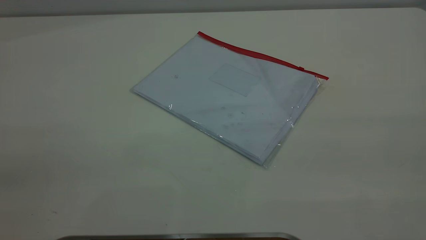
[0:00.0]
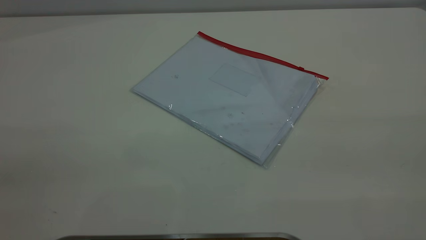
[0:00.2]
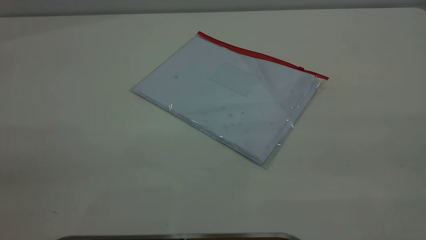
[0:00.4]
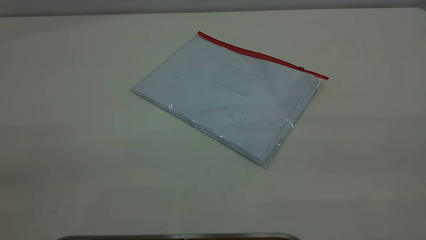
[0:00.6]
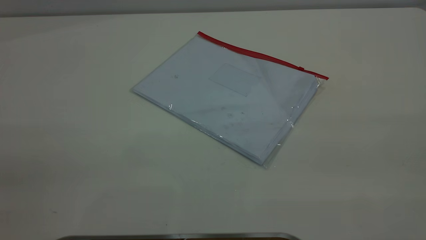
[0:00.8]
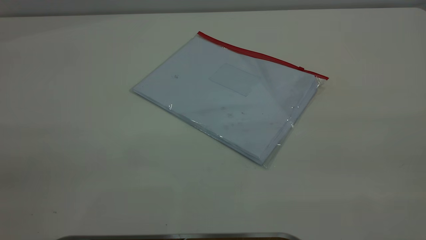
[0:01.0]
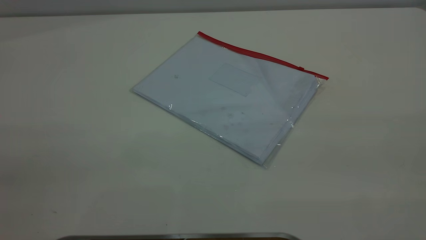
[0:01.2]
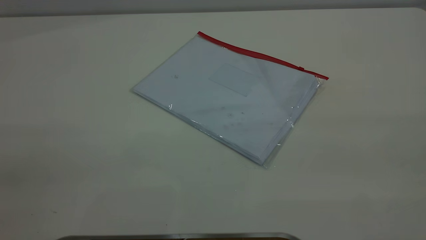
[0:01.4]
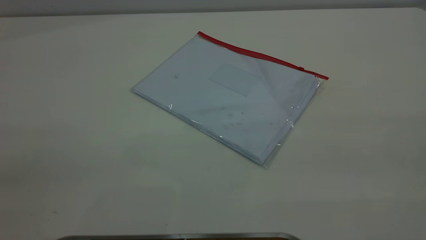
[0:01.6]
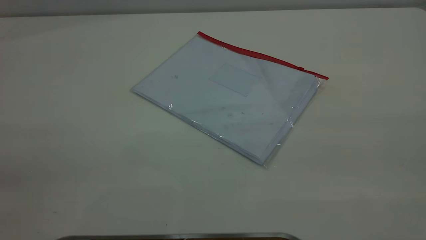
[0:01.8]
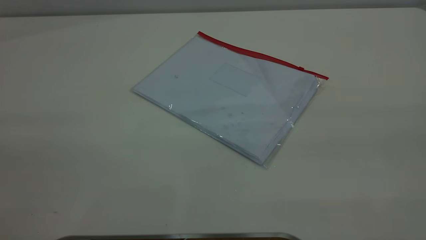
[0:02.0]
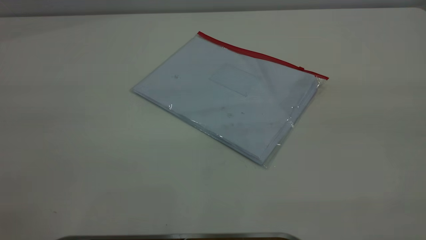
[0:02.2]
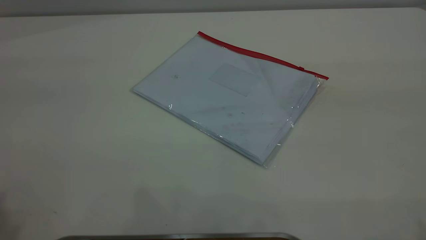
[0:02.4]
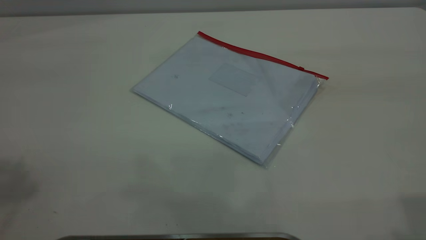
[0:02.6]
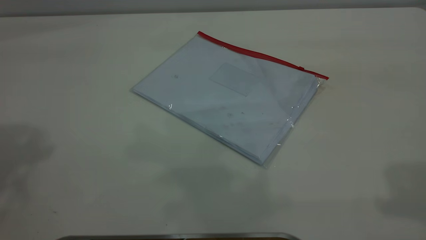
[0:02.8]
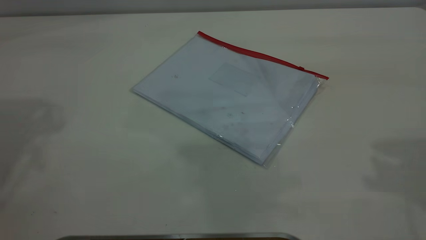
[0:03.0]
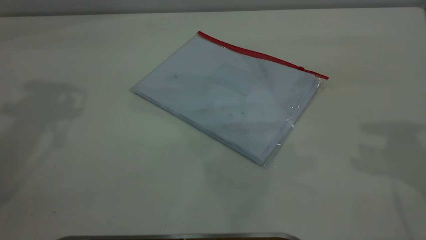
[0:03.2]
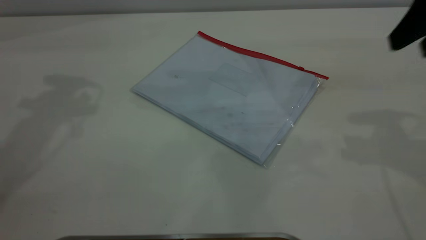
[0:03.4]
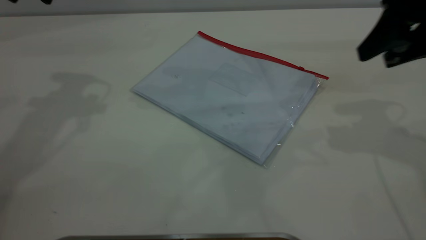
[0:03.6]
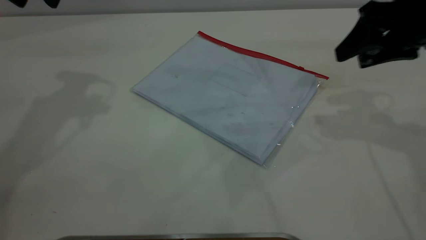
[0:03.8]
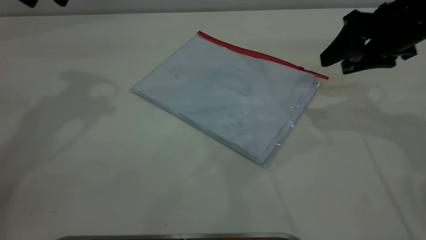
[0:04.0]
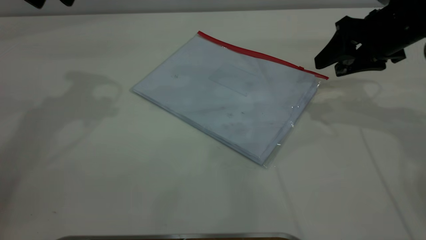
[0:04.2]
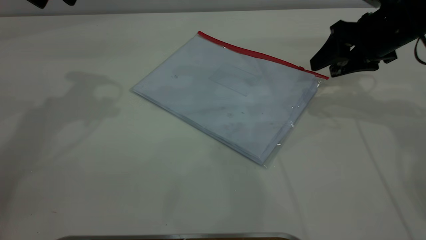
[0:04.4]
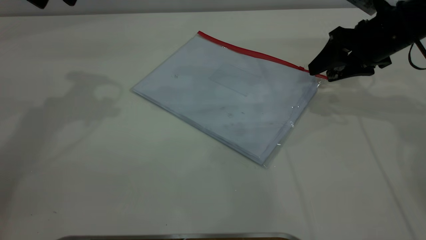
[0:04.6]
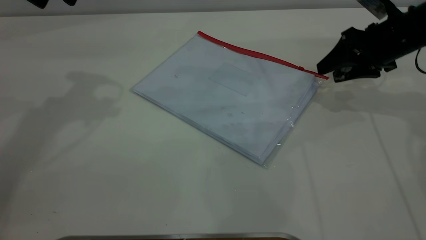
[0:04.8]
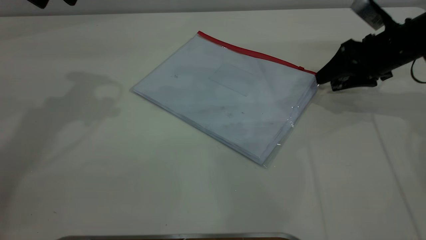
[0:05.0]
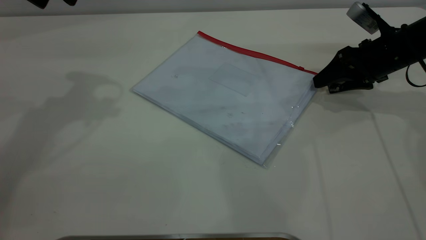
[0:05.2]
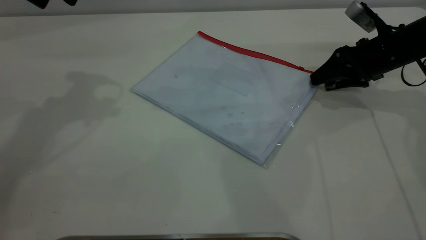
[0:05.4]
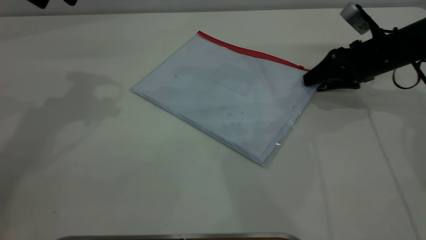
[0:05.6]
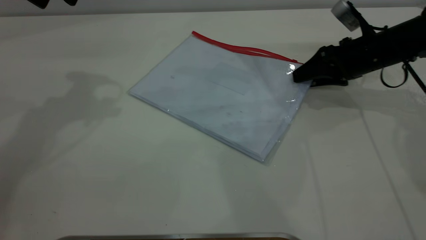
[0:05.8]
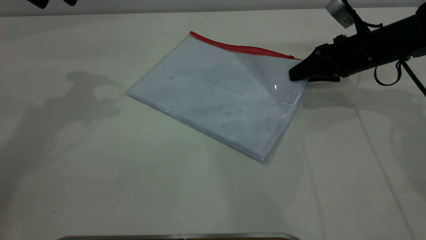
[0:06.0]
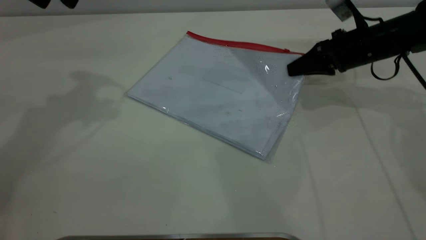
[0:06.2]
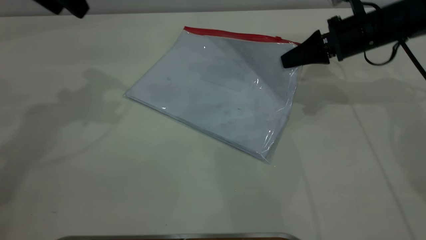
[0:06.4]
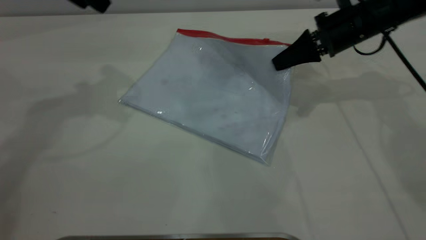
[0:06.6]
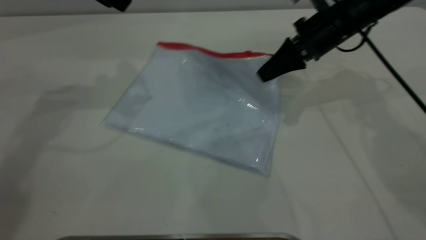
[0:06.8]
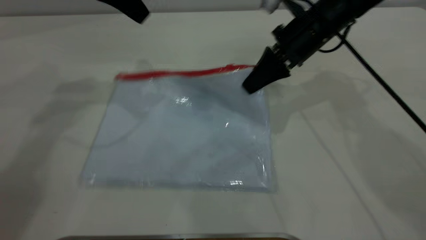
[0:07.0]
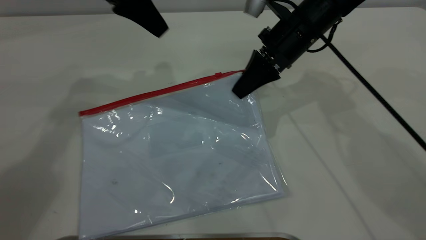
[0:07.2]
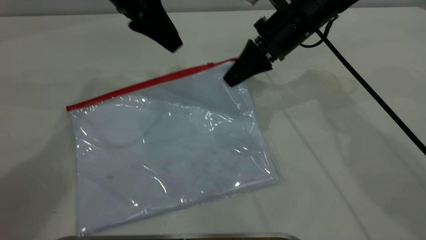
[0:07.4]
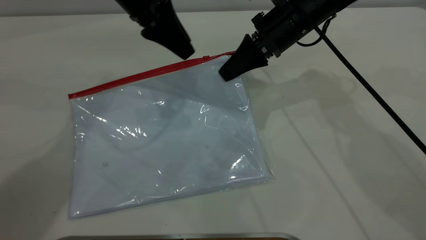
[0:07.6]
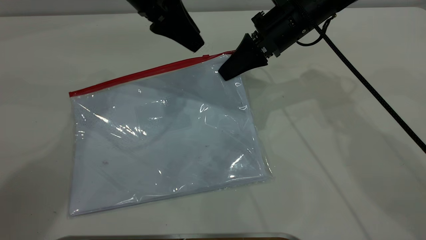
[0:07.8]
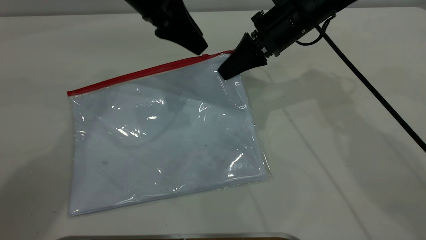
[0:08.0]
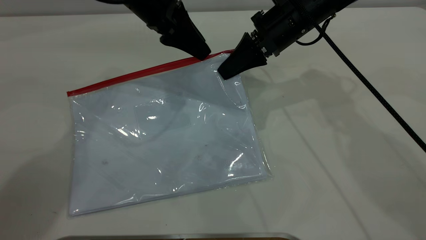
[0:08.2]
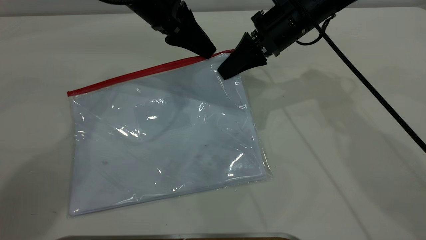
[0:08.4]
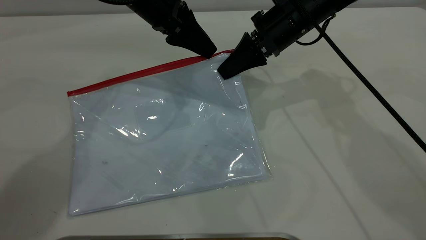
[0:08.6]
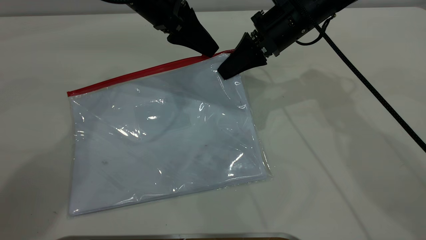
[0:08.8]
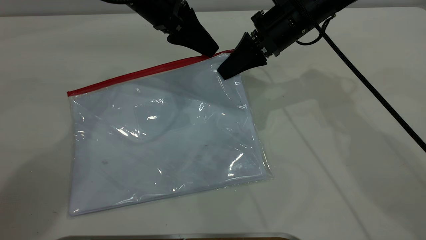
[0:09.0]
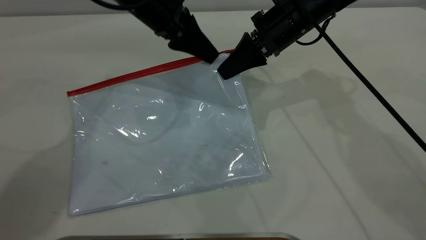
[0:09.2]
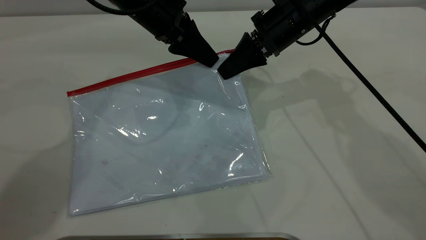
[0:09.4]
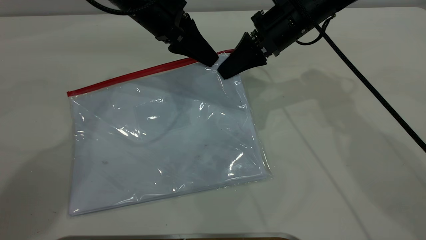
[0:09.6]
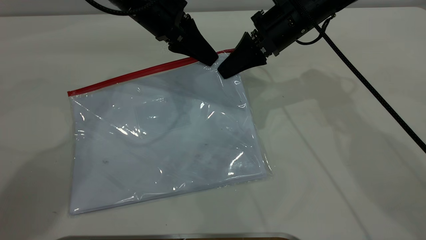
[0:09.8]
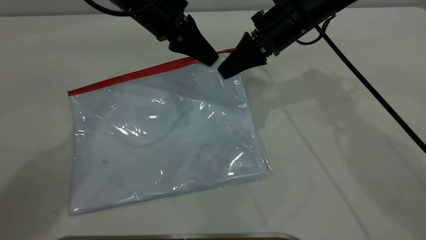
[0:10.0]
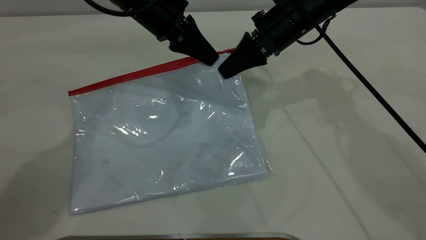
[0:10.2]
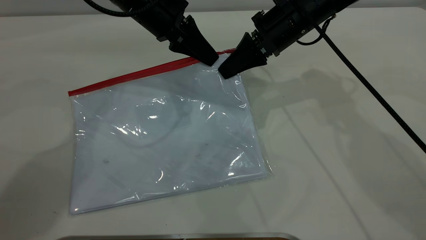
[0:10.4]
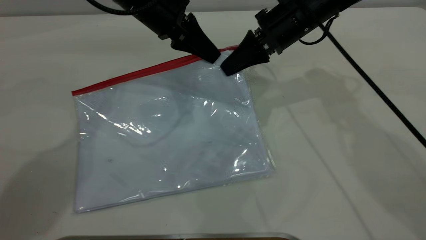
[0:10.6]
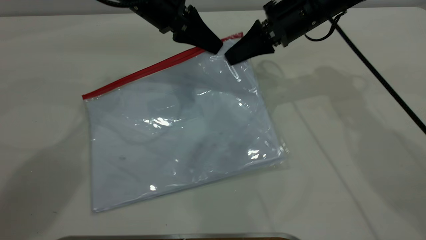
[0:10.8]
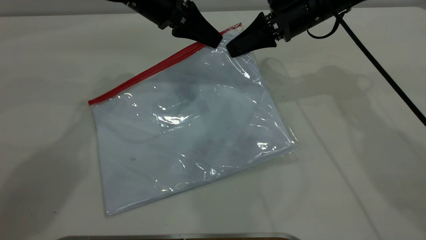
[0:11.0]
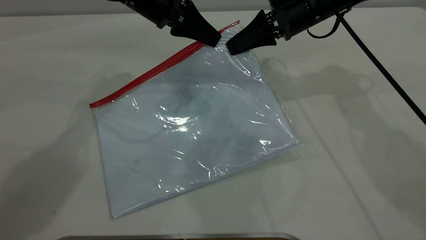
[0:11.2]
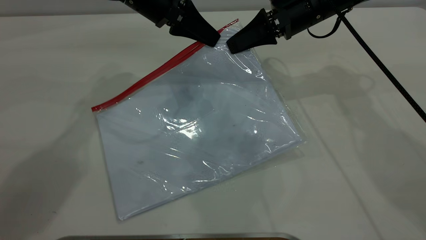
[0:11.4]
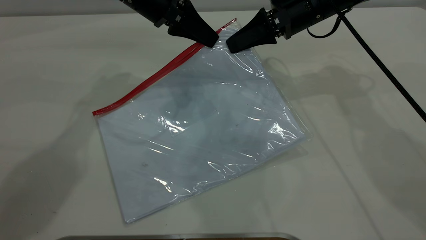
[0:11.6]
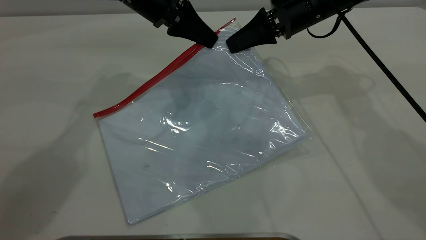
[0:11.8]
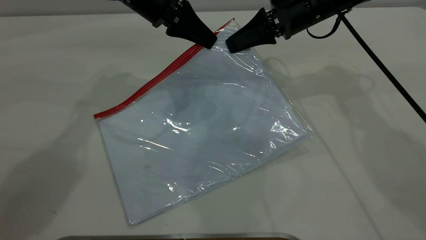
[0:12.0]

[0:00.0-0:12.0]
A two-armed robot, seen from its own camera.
Step, 0:00.0 to 0:06.8: Pick up the transparent plastic bag with the right gripper.
0:00.0 to 0:01.6: Neither gripper changes place.
0:03.0 to 0:04.4: The right gripper shifts about 25 cm downward and forward.
0:04.4 to 0:06.0: The right gripper goes some 5 cm downward, and closes up.
0:06.0 to 0:07.6: The right gripper goes approximately 15 cm to the left and upward, while the left gripper shifts some 15 cm to the right and downward.
0:07.6 to 0:09.0: The grippers stay close to where they were, moving slightly.
0:09.0 to 0:10.4: The left gripper closes.
0:10.4 to 0:12.0: The grippers make only small movements.

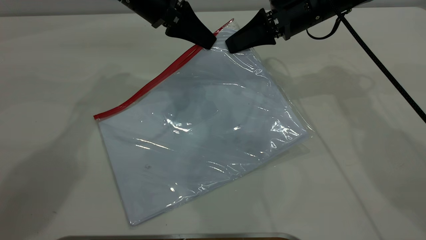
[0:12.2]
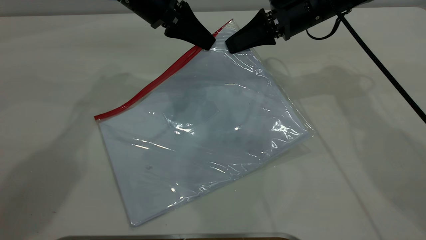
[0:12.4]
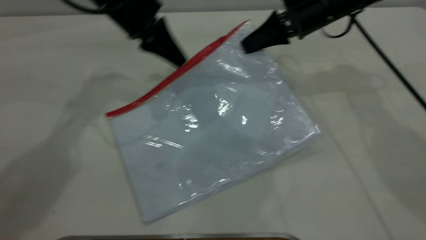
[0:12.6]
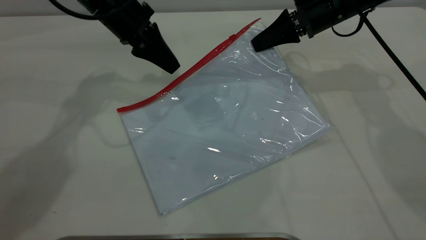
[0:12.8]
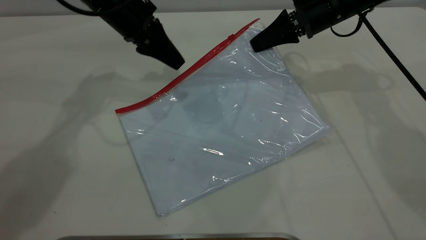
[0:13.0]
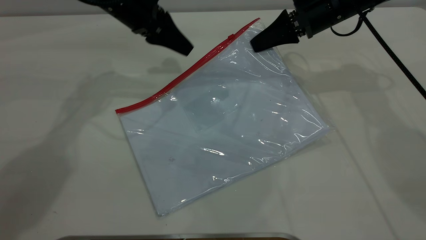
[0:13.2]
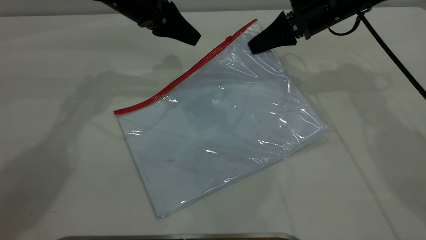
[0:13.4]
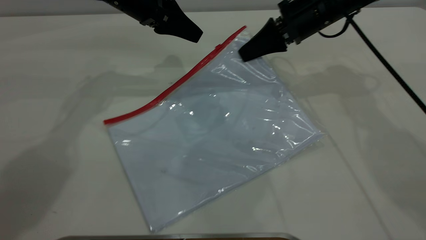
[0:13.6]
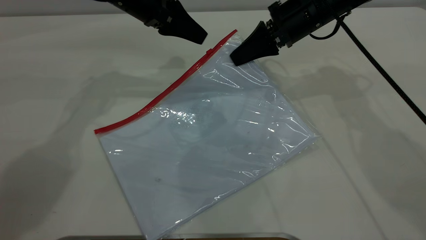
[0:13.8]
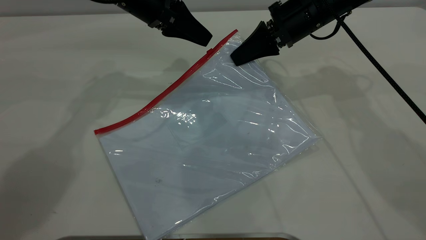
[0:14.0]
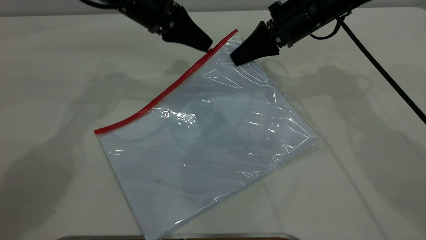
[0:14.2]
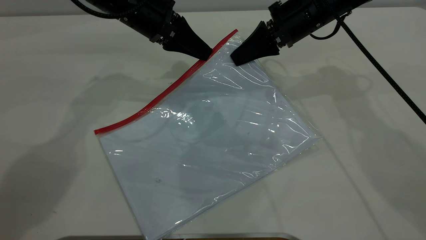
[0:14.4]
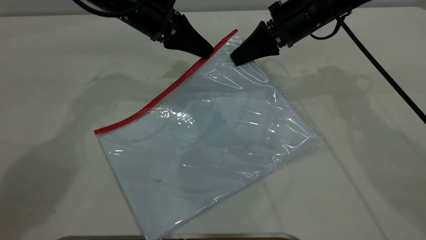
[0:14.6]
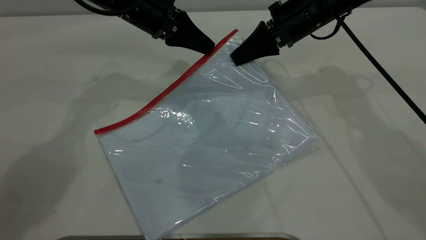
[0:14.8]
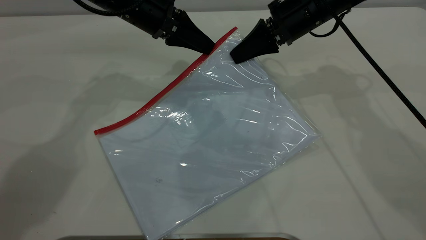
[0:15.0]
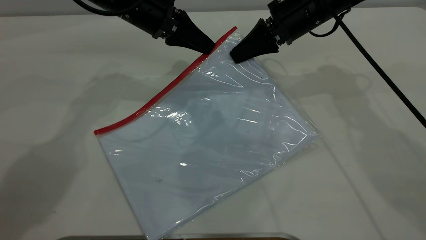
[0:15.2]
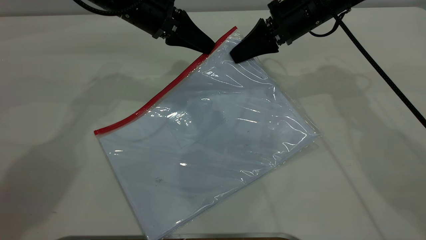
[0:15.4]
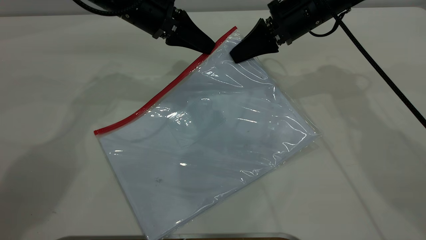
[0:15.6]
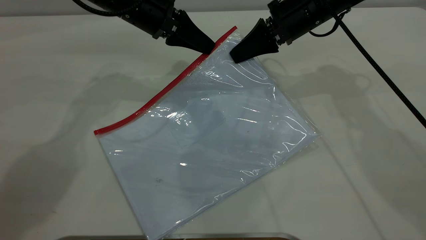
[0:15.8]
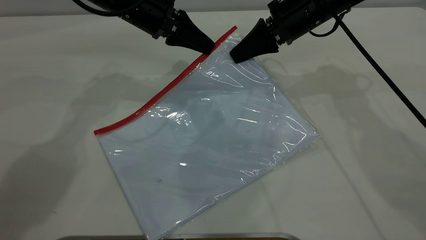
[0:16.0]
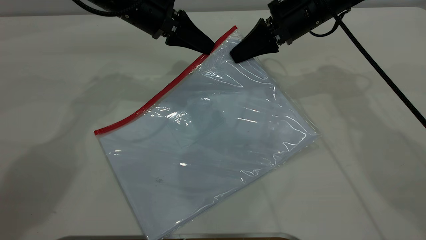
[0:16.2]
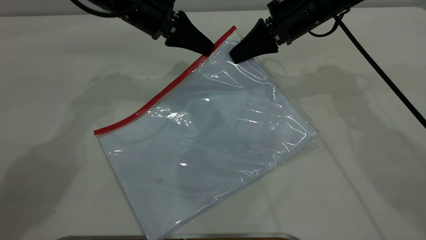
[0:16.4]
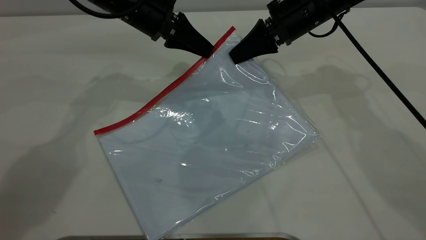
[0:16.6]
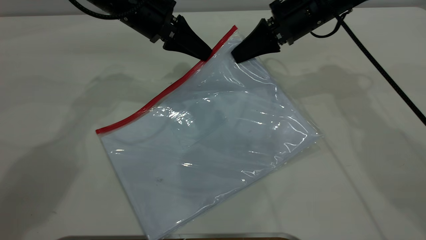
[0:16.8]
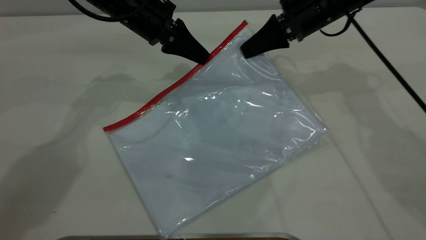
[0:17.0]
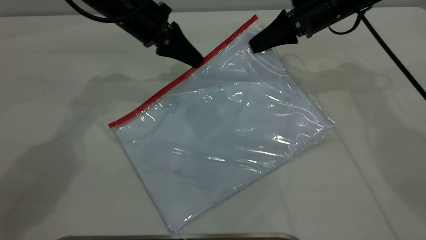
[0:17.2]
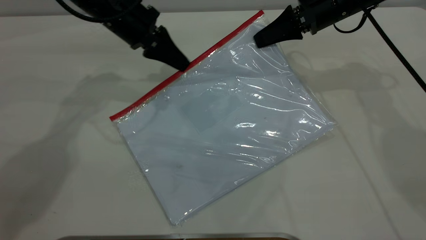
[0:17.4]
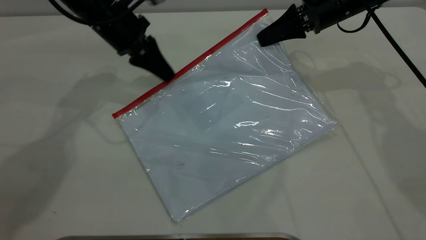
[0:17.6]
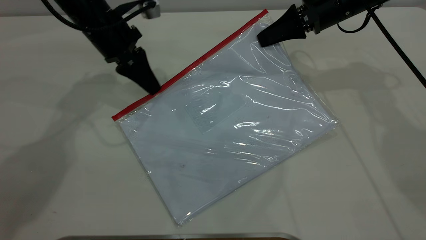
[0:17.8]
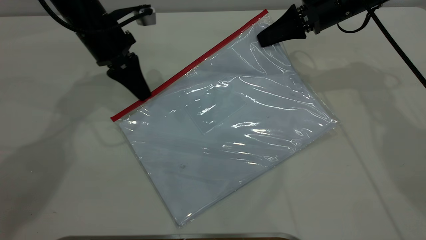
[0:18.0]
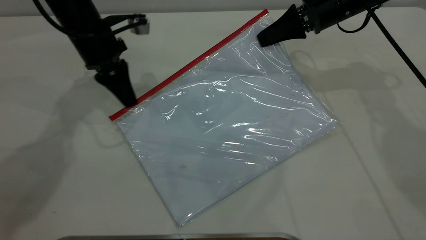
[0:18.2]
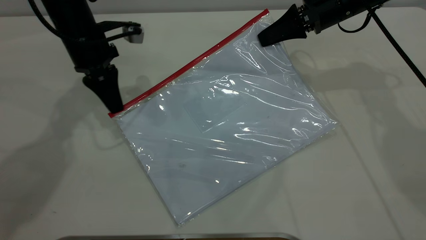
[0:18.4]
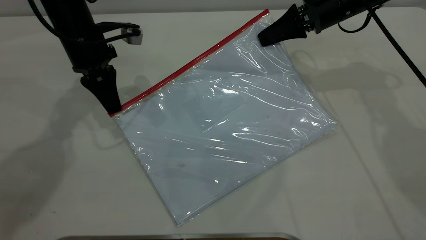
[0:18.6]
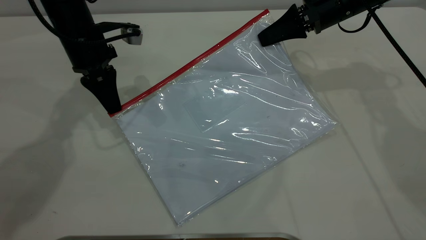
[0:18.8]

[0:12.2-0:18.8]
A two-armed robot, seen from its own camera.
0:12.2 to 0:13.8: The left gripper opens.
0:13.8 to 0:17.2: The grippers stay close to where they were, moving slightly.
0:17.2 to 0:18.8: The left gripper moves to the left, about 5 cm.
